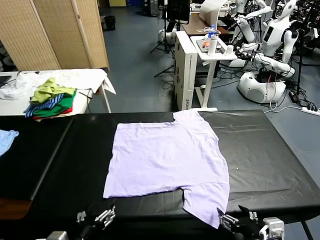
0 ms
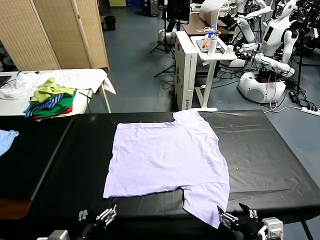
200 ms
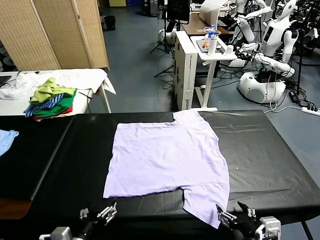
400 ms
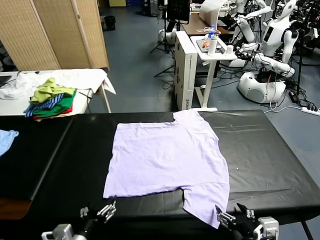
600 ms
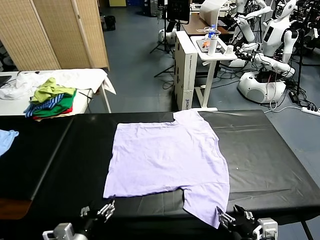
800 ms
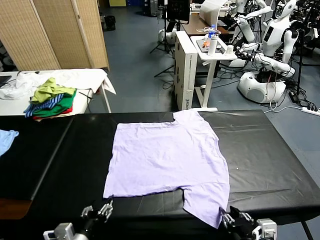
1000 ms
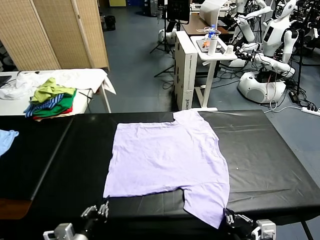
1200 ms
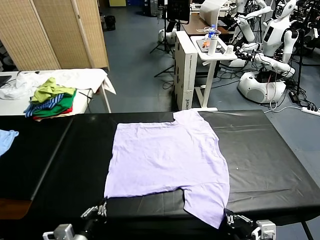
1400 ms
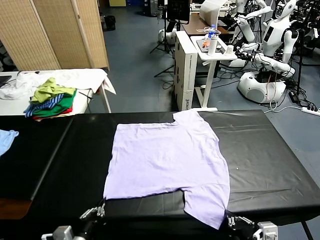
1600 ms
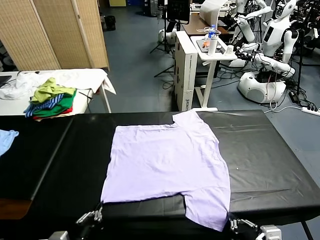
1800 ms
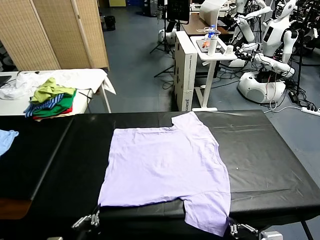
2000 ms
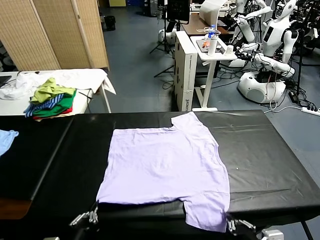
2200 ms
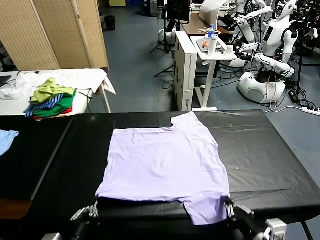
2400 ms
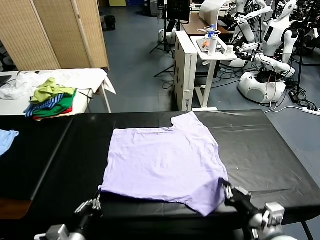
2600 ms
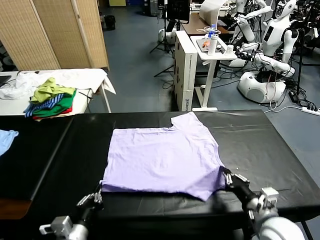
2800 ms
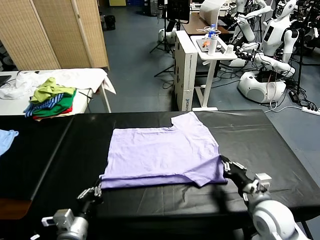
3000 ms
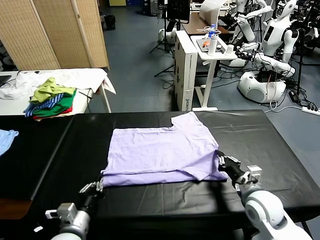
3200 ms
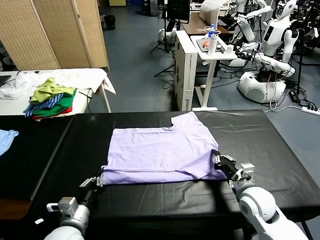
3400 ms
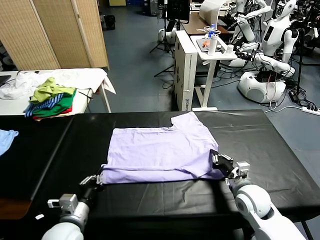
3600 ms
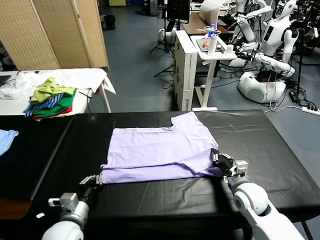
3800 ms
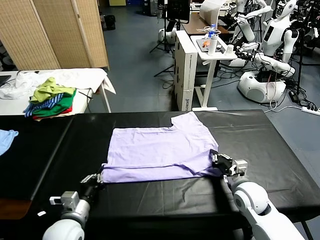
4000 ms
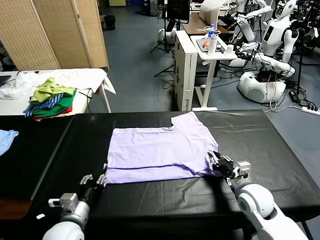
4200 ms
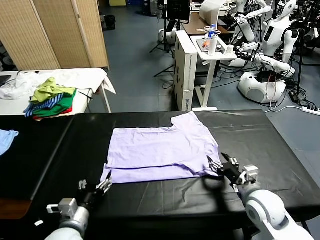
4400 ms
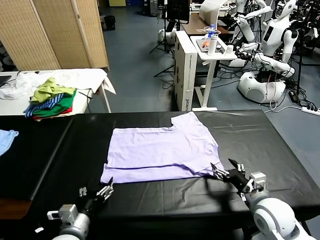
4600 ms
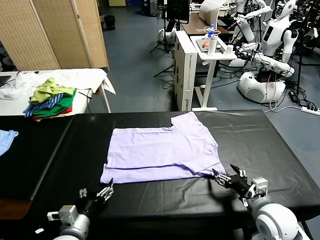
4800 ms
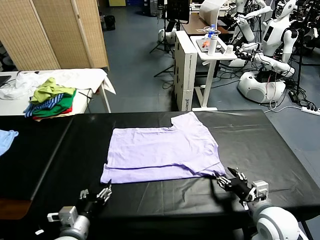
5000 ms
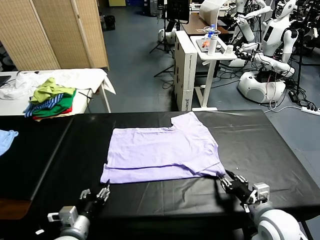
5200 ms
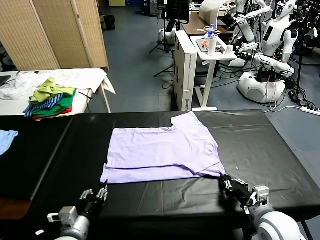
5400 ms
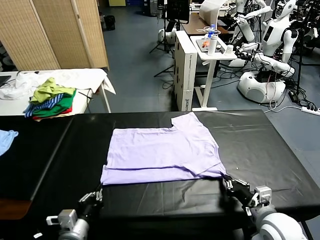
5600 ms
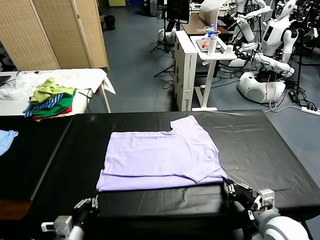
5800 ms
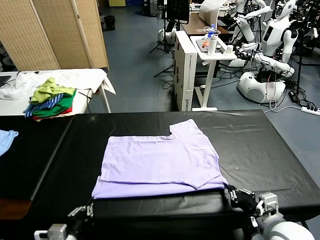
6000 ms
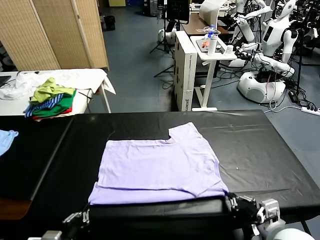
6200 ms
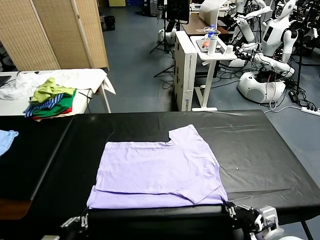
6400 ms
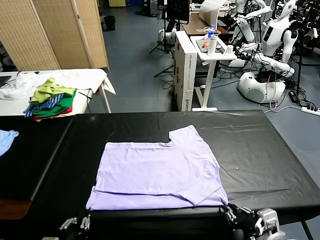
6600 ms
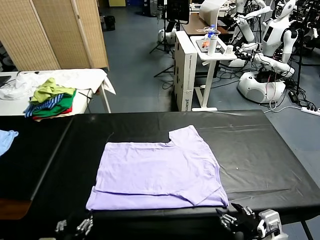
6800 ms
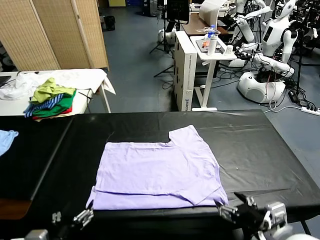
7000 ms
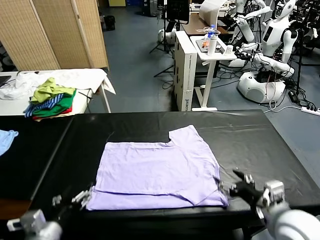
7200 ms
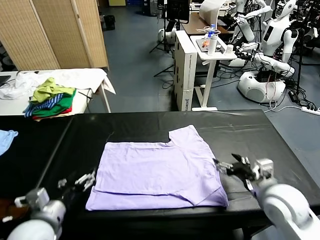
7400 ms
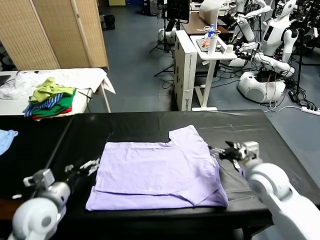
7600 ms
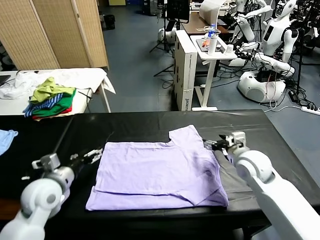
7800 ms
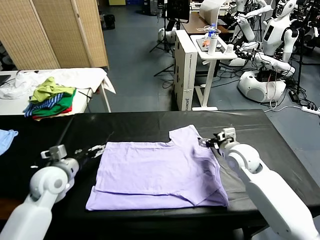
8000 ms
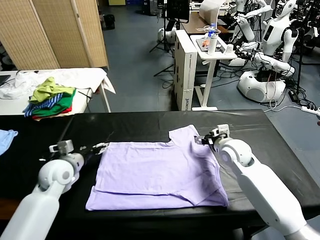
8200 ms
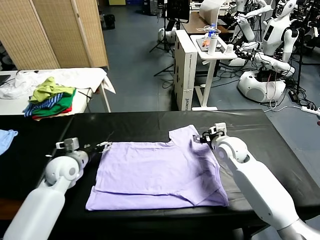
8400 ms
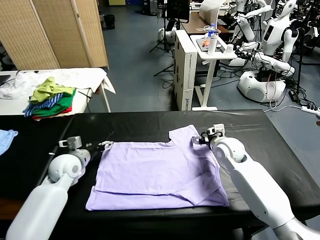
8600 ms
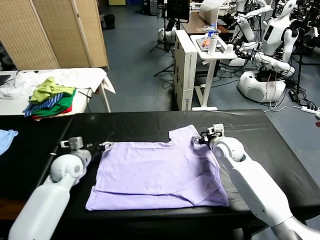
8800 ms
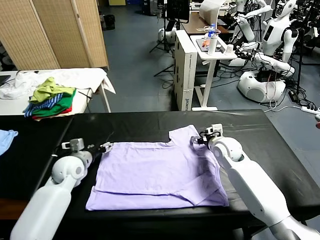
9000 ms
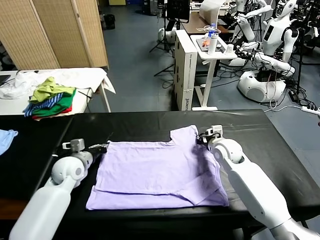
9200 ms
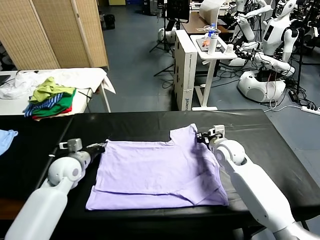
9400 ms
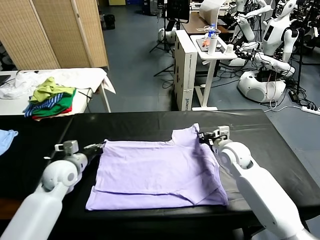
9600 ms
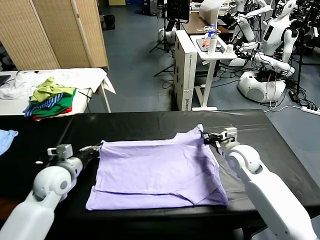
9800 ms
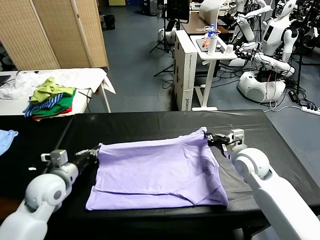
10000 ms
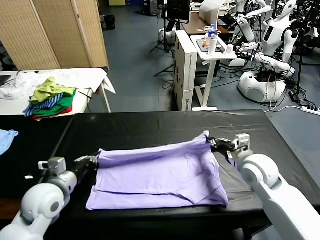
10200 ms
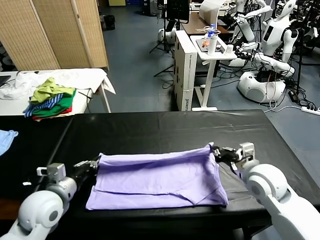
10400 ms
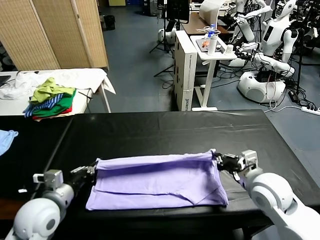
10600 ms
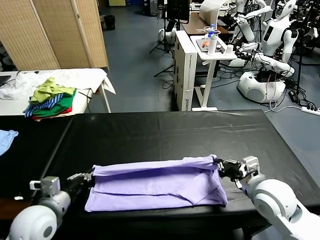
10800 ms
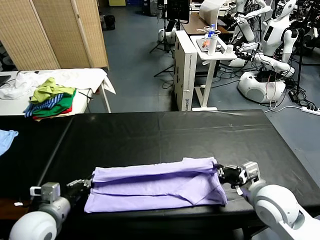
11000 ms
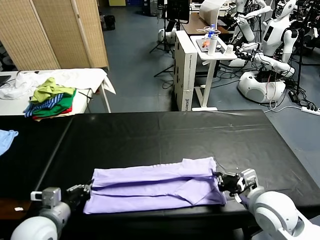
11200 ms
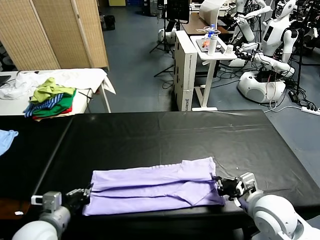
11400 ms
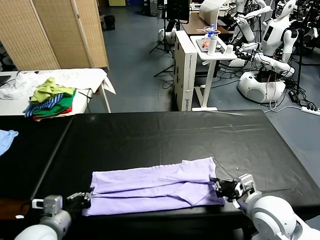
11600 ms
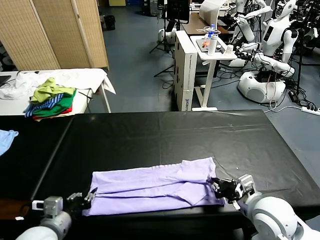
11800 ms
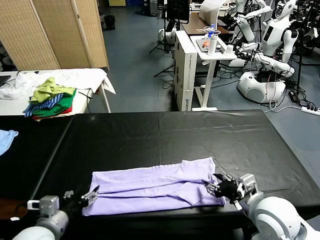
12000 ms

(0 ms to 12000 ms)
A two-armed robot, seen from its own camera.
Task of the whole recording: fold and organize the clothes.
Step, 0 ms - 1600 ms: use both grippers simultaneously to clamp the lower edge of the clothing fabric.
Step, 1800 ms - 4400 ms: use both grippers to drag the lower edge of the fabric forward and fold it over the upper edge.
Step, 4600 ms - 6800 ms: Drag the clothes downward with both gripper.
Step, 7000 ms - 9200 ms: use both grippers simultaneously to clamp the upper edge of the clothing fabric.
1600 ms - 3000 ms: The right gripper is displaced forward by roughly 20 cm, while the left gripper travels forward by some 5 cm.
3000 ms - 4400 ms: The right gripper heads backward, covering about 5 cm, and opens its fingers. Meanwhile the left gripper opens.
4400 ms - 6000 ms: Both grippers move backward, about 10 cm. The right gripper closes. The left gripper closes its fingers.
6000 ms - 7600 ms: The grippers both shift forward by some 25 cm. The left gripper opens its fingers; the right gripper opens.
7600 ms - 9000 ms: The left gripper moves forward and downward, some 10 cm, and closes its fingers. The right gripper goes approximately 5 cm forward, and closes.
9000 ms - 10400 ms: Both grippers travel together backward and upward, about 15 cm. The left gripper closes up.
10400 ms - 12000 ms: The two grippers go some 10 cm backward. The right gripper opens up.

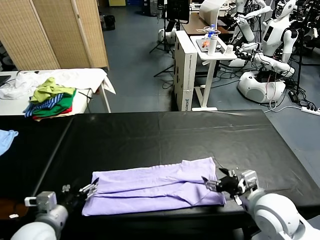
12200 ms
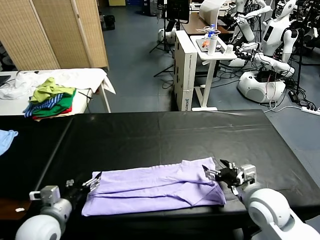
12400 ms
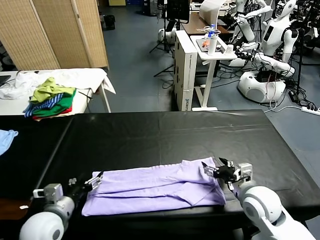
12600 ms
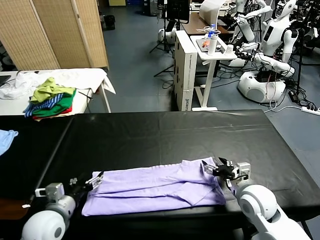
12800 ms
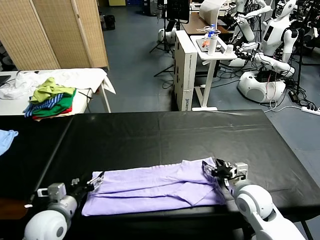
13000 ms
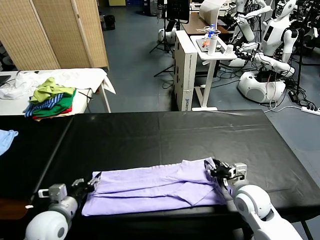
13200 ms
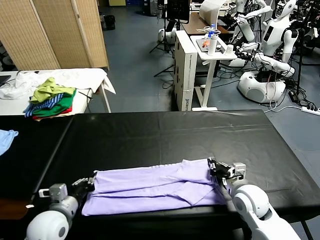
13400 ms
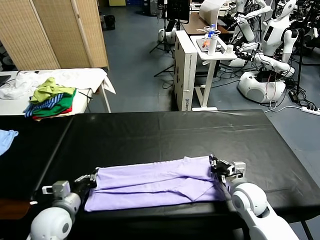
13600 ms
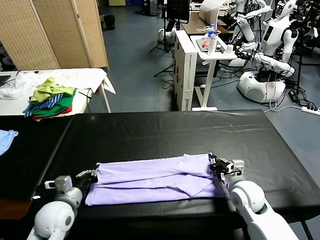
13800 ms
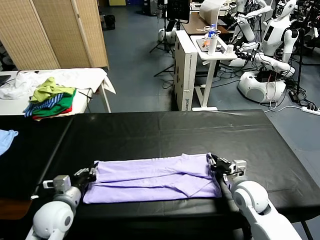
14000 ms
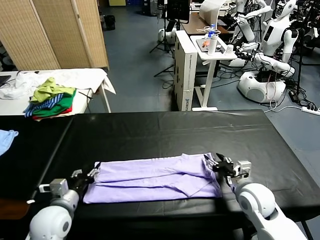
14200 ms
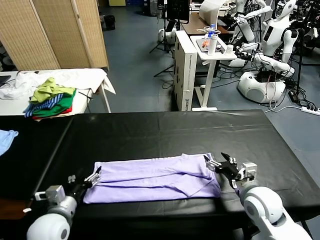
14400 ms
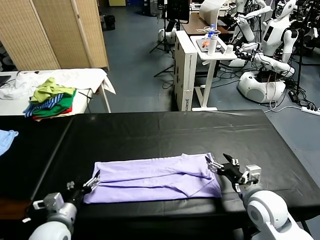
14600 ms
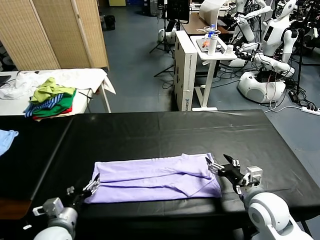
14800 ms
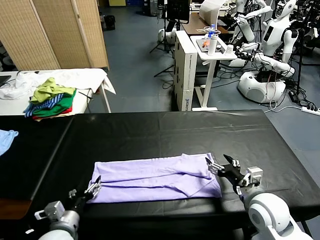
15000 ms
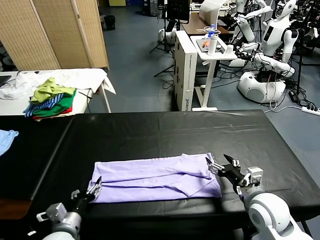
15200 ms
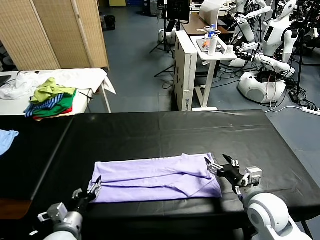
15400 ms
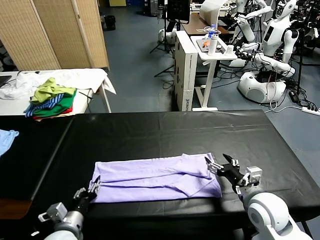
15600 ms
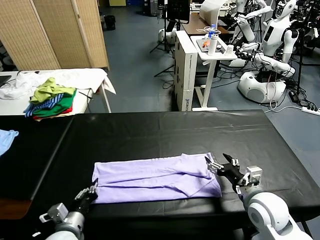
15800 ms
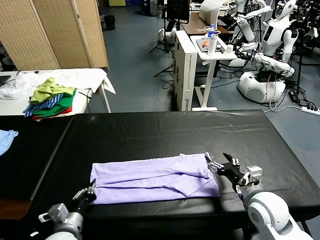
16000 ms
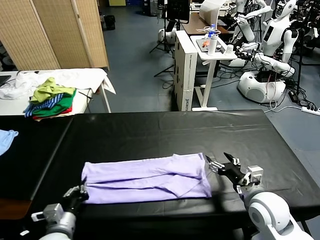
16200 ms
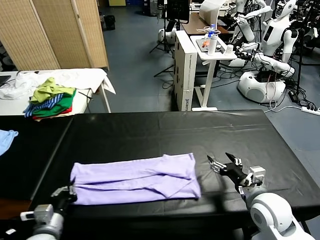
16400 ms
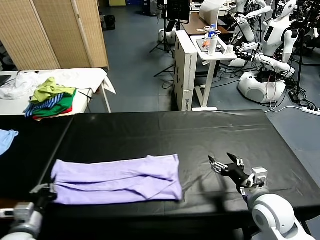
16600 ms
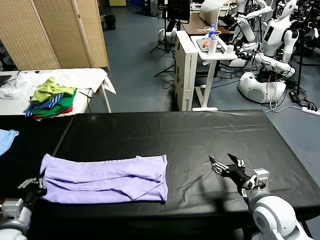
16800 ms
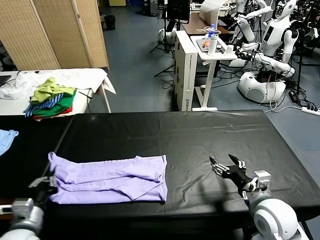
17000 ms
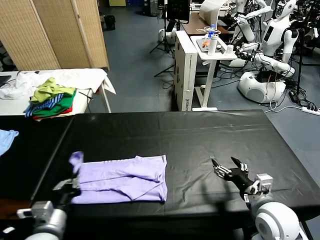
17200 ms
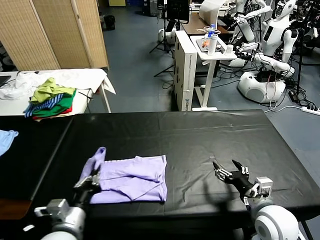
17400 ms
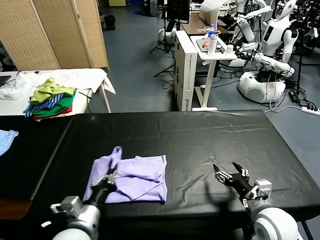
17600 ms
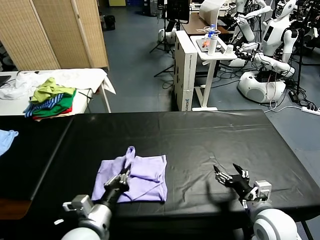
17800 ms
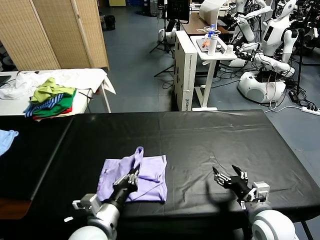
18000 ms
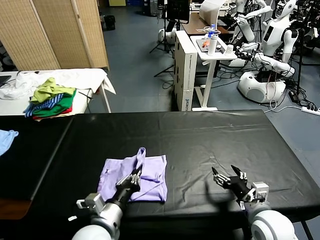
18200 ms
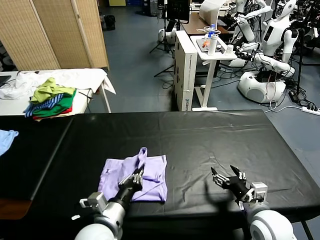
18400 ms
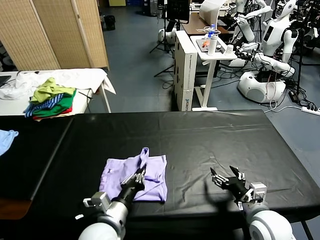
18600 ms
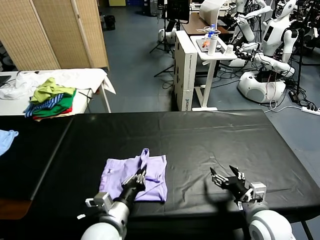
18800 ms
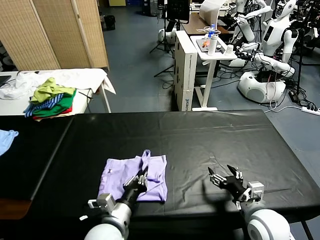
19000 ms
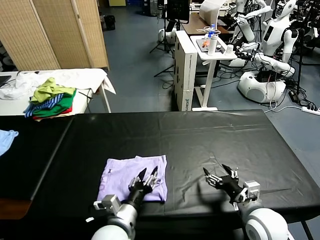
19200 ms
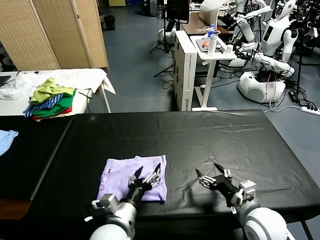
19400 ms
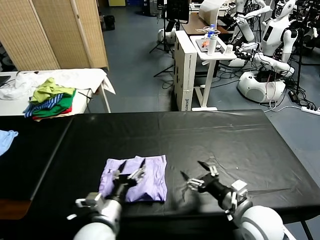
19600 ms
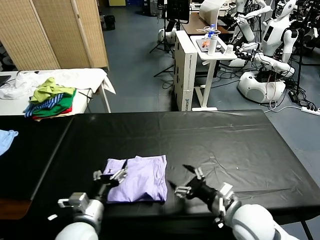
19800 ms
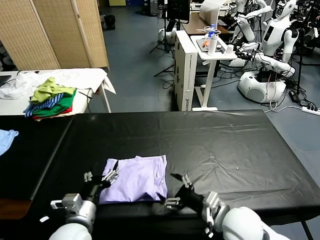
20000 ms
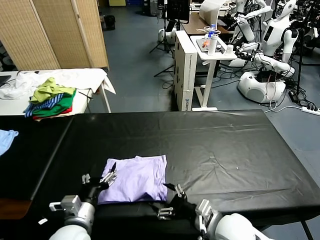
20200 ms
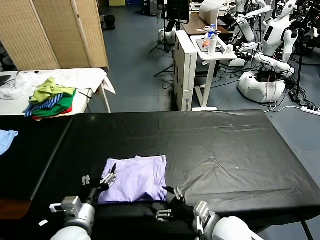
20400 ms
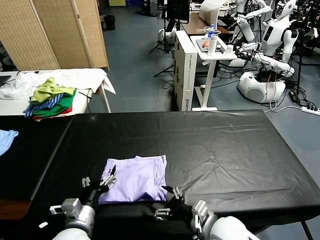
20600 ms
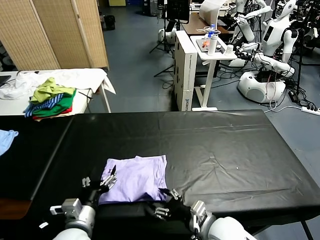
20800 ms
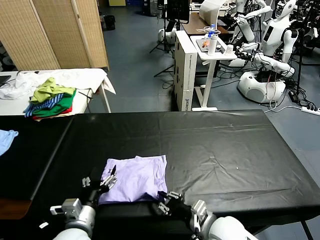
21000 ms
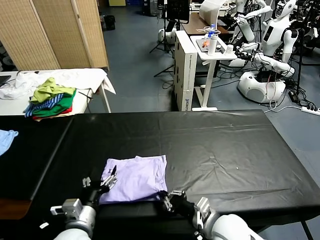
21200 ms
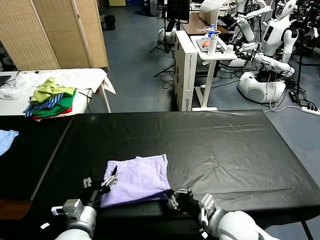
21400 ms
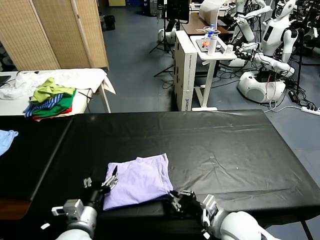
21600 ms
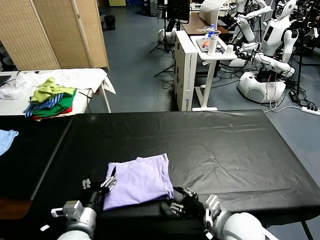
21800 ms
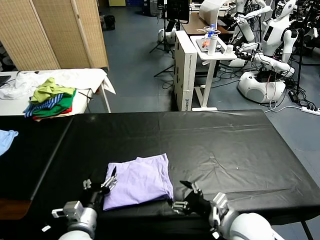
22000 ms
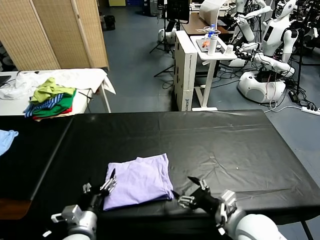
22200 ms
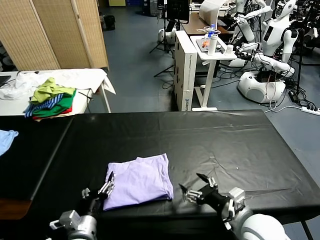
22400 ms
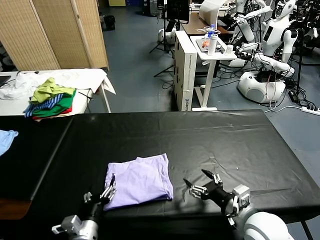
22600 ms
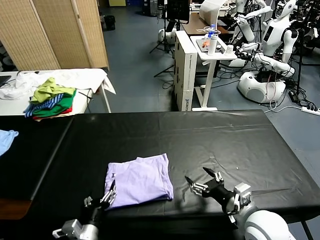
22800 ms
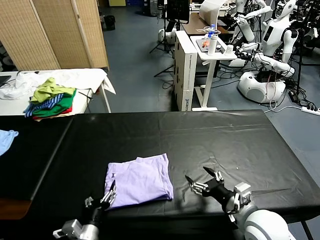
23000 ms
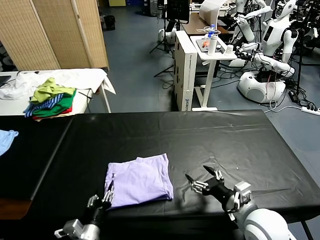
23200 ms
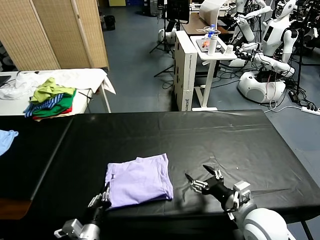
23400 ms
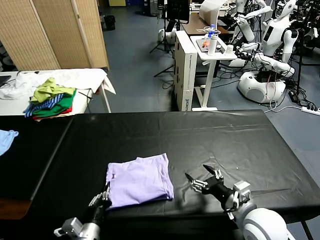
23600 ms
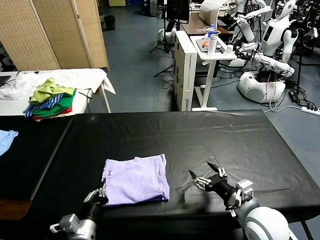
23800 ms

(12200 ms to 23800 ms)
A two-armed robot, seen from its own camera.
Task of the whole recording: fold and organize the clothes.
Step, 12200 ms - 16000 ms: use the left gripper to clamp the left edge of the fabric.
Step, 16400 ms - 19600 ms: use the left gripper to drag the left edge of the fabric to the left and folds it over the right edge.
12200 ms - 13600 ms: The left gripper changes place by about 5 cm, and closes; the right gripper travels downward and forward by approximately 10 cm, and closes its fingers.
13600 ms - 15000 ms: The right gripper shifts by approximately 5 cm, and opens its fingers. The left gripper opens its fingers.
15000 ms - 16600 ms: The left gripper closes up.
16600 ms - 18000 ms: The left gripper travels to the right and upward by approximately 15 cm.
18000 ms - 19400 ms: The left gripper moves to the right, roughly 5 cm, and opens its fingers.
19400 ms - 21000 ms: Both grippers travel together to the left, some 10 cm. The right gripper closes its fingers.
21000 ms - 22400 ms: The right gripper moves to the right and upward, roughly 10 cm, and opens up.
22400 ms - 23800 ms: The left gripper closes.
